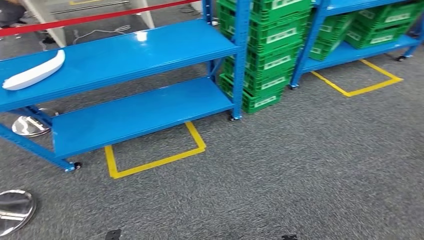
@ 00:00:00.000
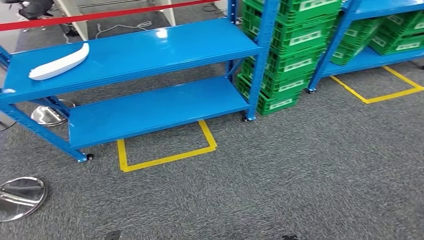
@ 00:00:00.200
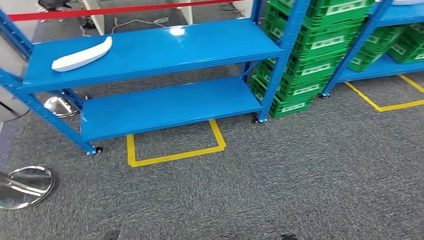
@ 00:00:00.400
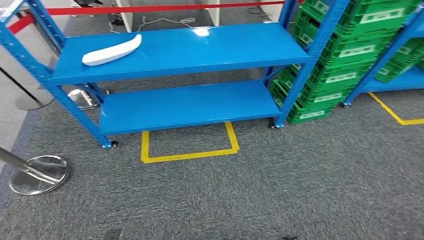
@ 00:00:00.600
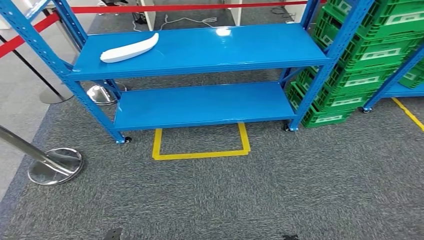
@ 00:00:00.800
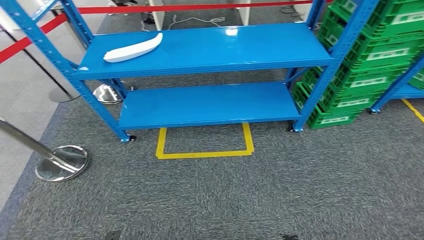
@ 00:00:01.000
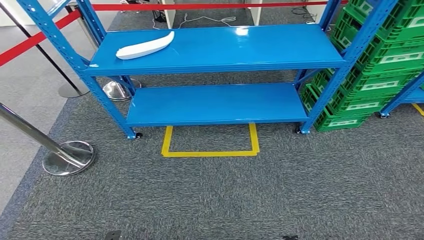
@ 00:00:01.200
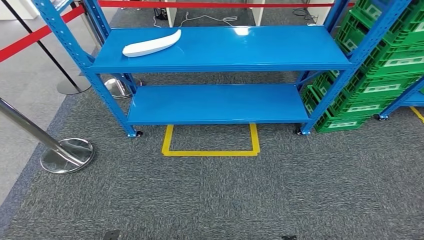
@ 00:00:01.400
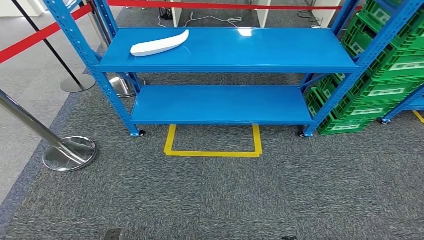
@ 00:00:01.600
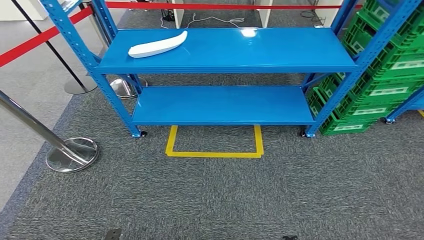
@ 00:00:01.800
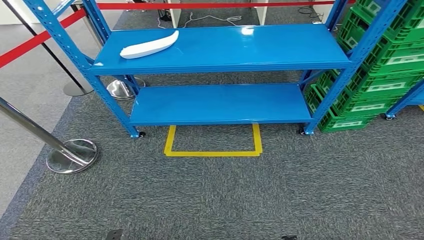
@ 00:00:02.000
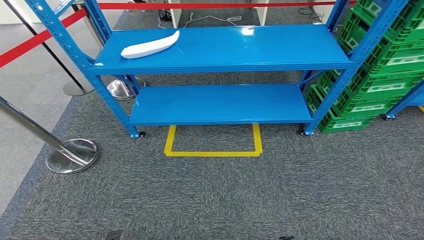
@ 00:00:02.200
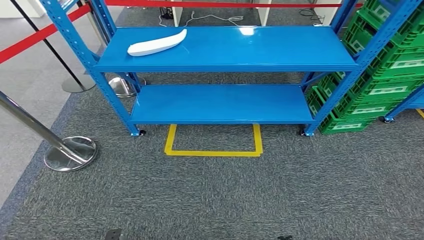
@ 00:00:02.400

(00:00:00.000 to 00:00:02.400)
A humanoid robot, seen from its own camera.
Step, 00:00:00.000 - 00:00:02.400: Move to the initial position of the workbench.
